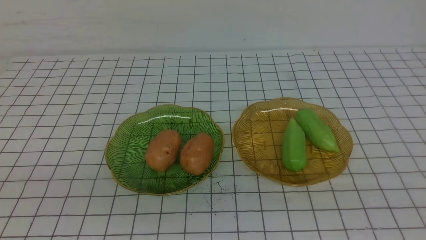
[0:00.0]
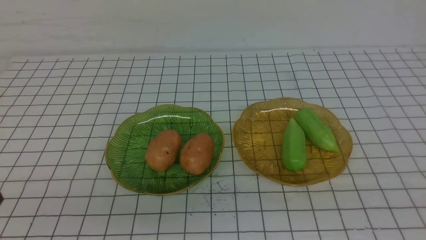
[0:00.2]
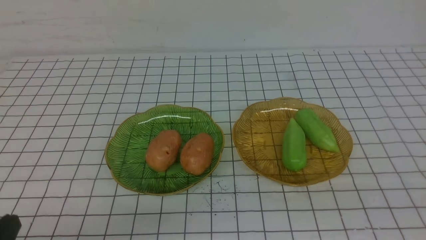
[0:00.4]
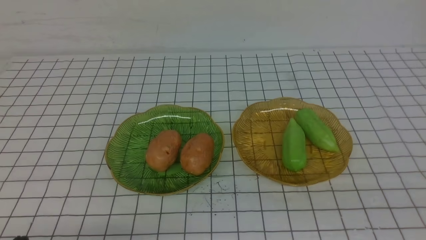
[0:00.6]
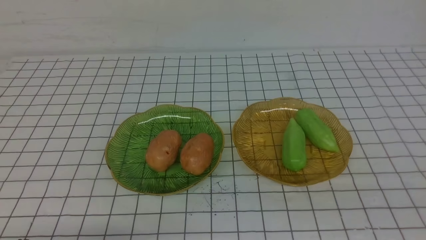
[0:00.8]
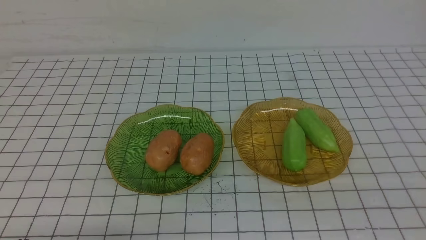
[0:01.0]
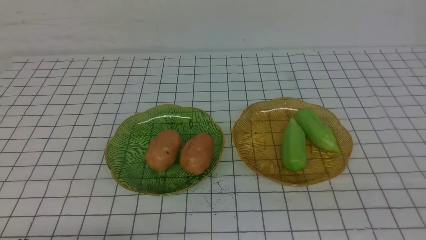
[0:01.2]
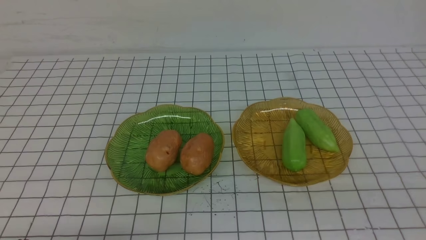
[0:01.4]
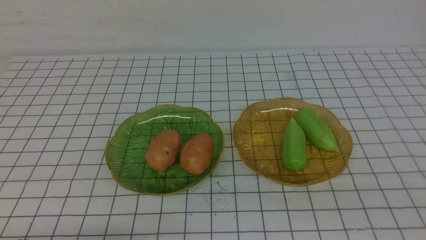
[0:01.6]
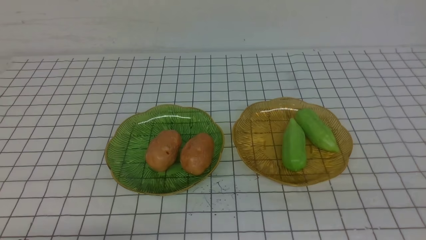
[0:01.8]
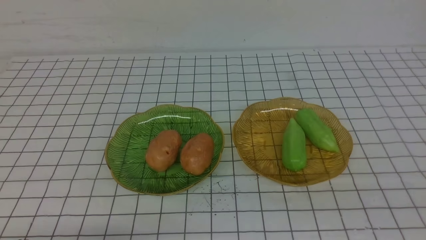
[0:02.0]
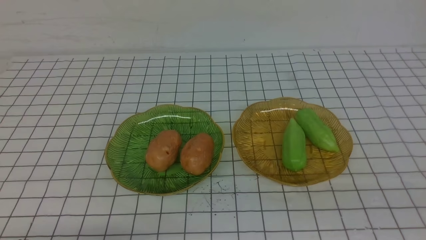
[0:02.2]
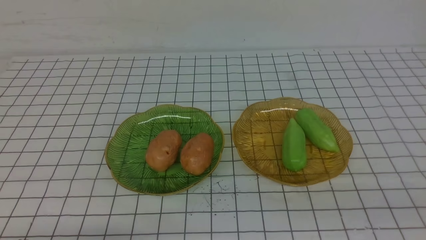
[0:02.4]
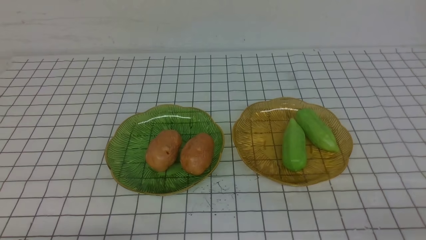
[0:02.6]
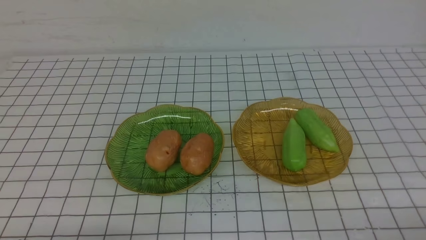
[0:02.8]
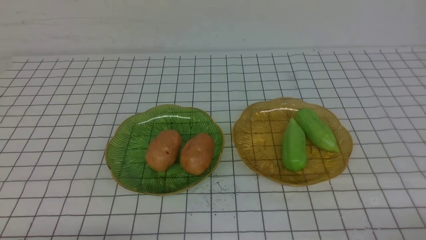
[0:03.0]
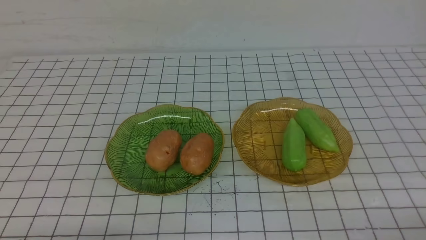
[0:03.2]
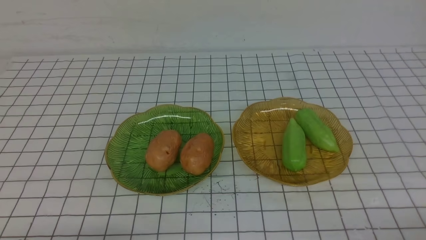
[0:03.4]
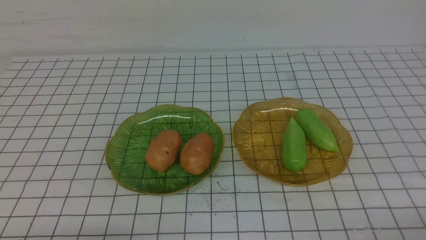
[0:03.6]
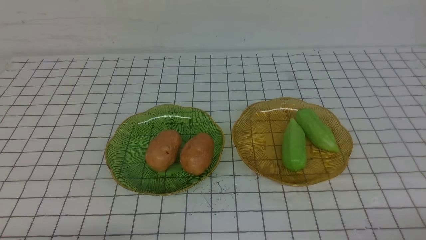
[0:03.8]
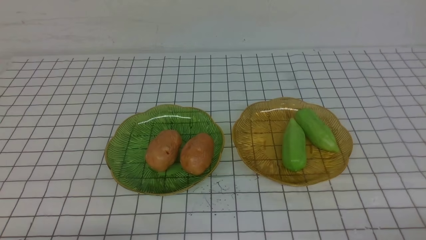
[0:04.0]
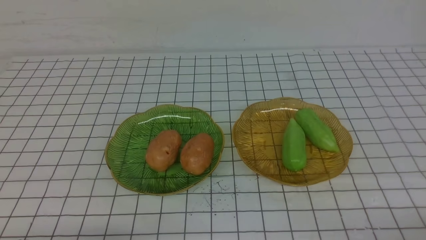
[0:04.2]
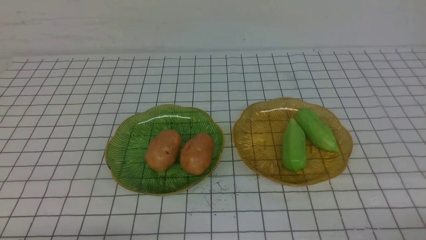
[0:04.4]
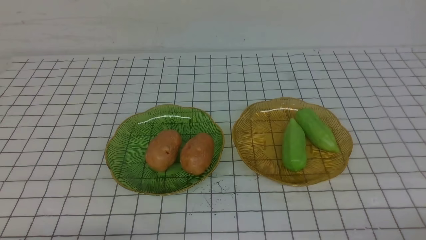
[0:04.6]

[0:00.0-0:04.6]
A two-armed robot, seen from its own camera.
0:03.0 to 0:04.6: The two grippers keep their place.
